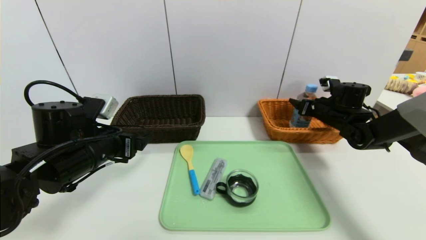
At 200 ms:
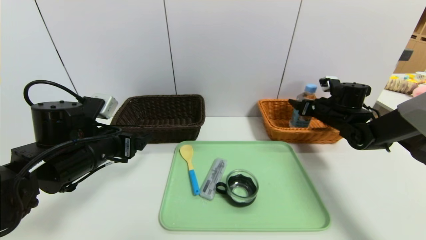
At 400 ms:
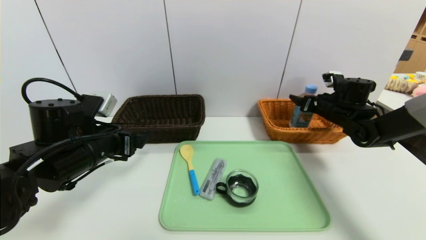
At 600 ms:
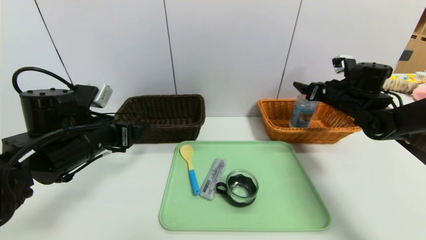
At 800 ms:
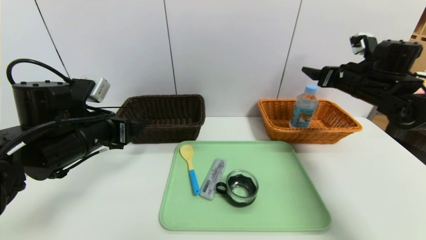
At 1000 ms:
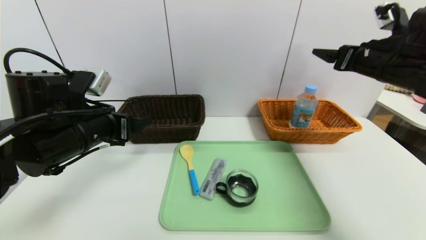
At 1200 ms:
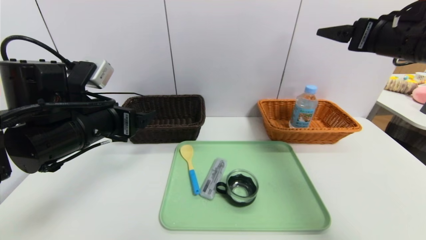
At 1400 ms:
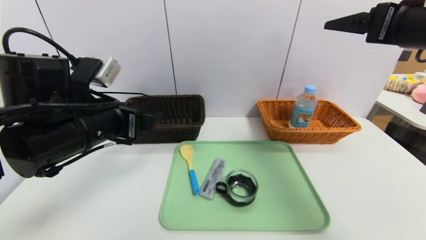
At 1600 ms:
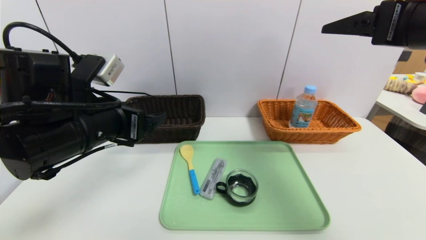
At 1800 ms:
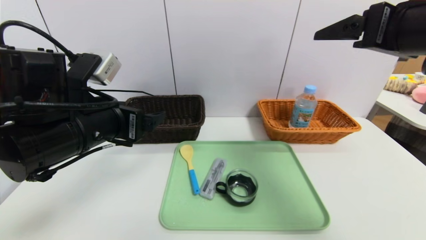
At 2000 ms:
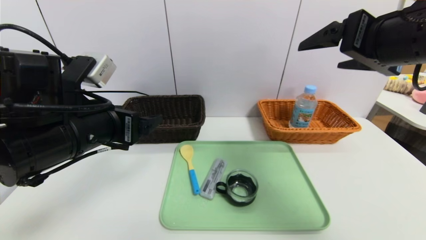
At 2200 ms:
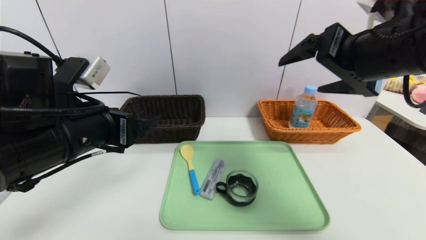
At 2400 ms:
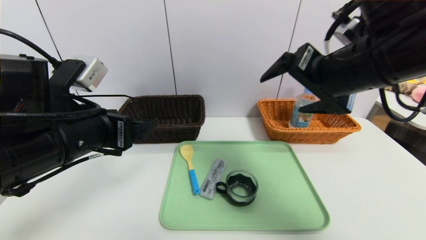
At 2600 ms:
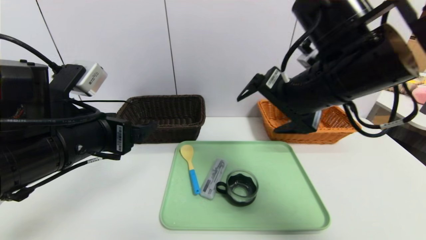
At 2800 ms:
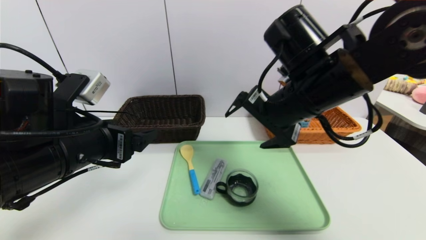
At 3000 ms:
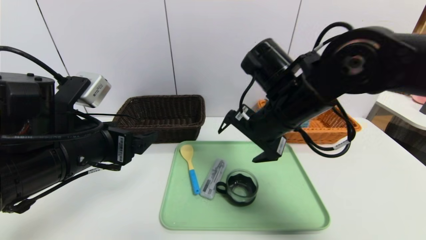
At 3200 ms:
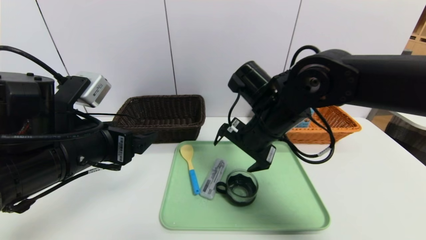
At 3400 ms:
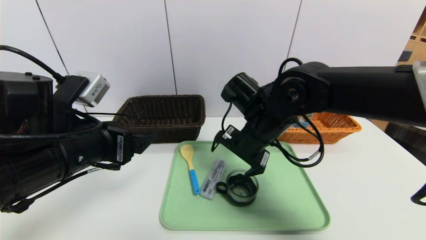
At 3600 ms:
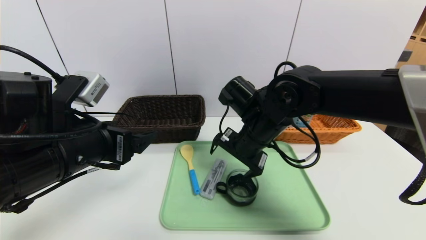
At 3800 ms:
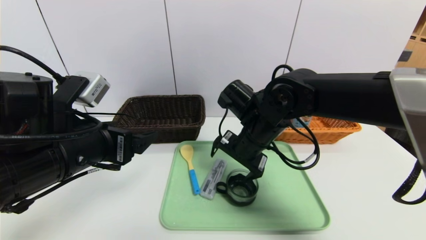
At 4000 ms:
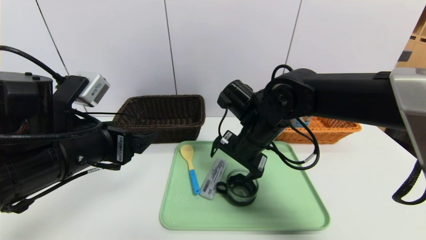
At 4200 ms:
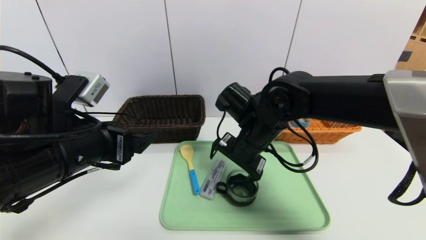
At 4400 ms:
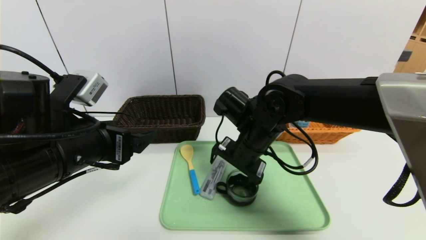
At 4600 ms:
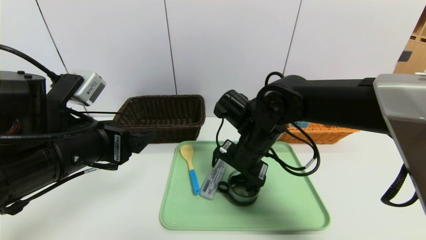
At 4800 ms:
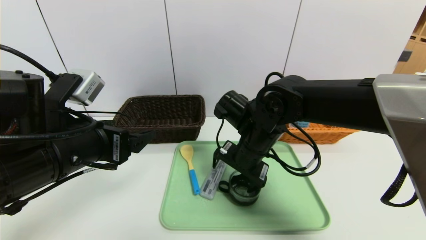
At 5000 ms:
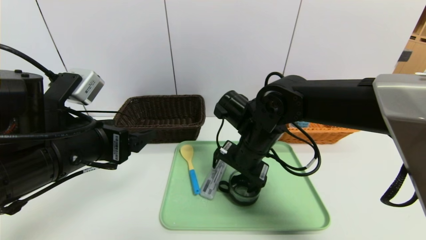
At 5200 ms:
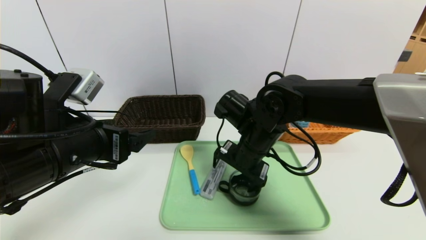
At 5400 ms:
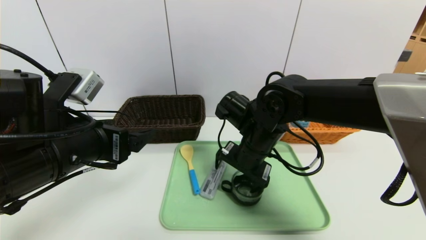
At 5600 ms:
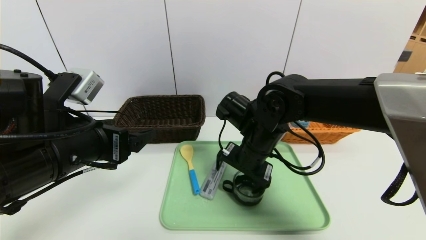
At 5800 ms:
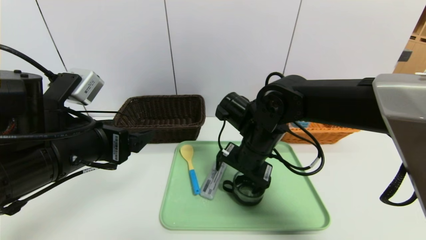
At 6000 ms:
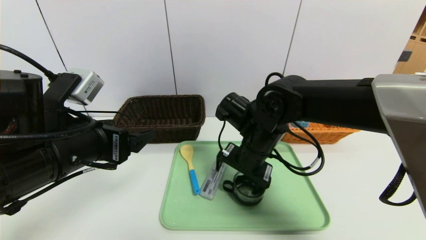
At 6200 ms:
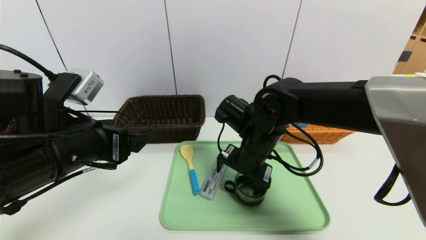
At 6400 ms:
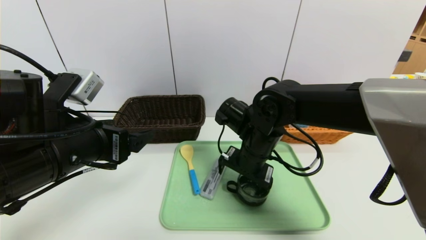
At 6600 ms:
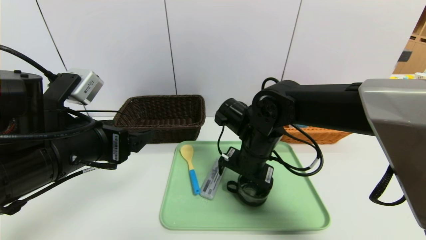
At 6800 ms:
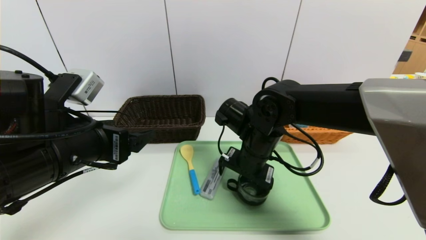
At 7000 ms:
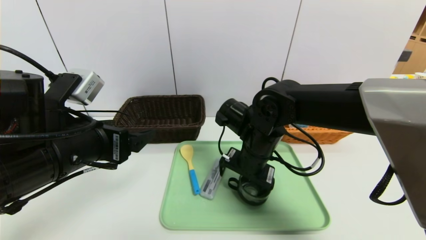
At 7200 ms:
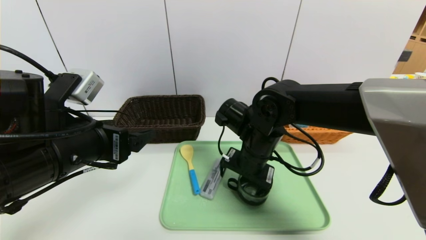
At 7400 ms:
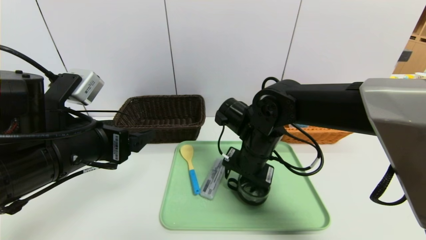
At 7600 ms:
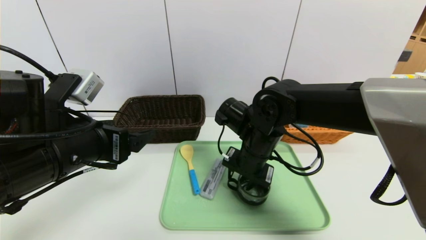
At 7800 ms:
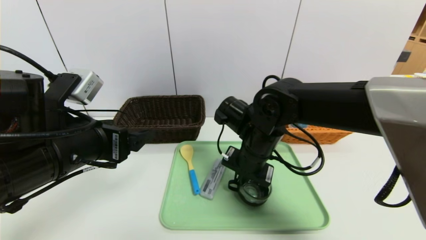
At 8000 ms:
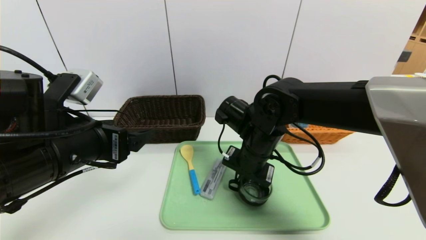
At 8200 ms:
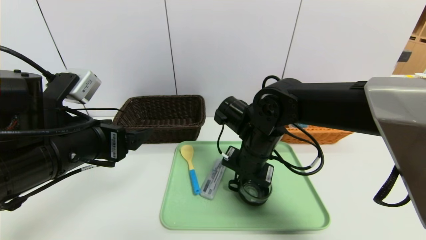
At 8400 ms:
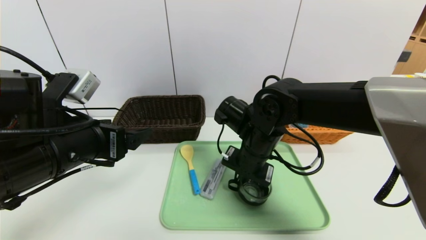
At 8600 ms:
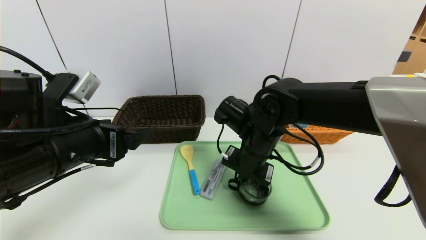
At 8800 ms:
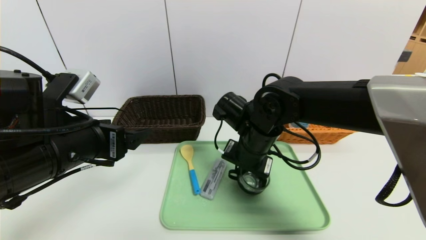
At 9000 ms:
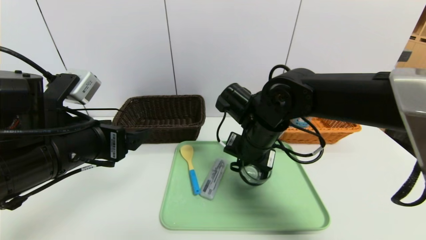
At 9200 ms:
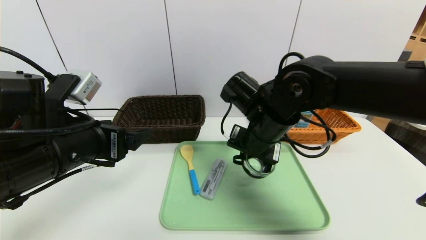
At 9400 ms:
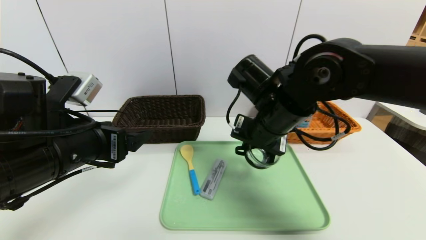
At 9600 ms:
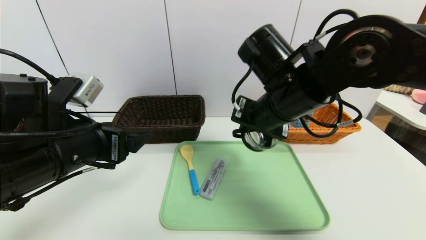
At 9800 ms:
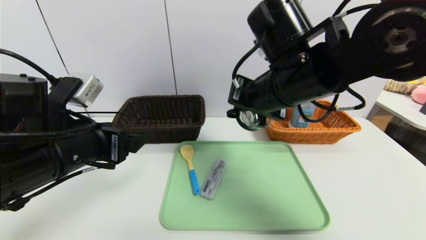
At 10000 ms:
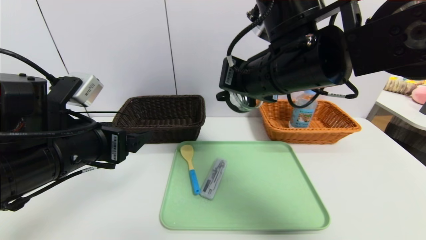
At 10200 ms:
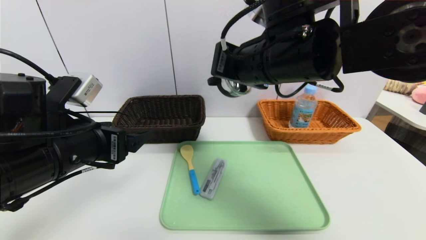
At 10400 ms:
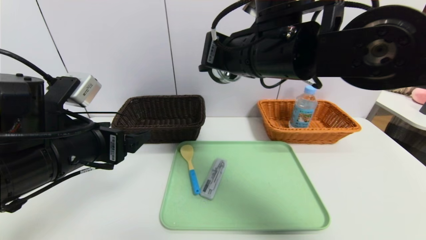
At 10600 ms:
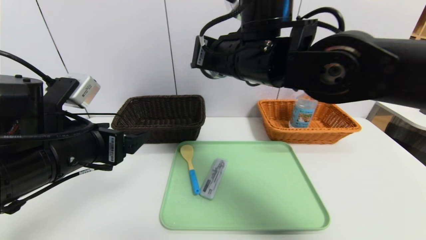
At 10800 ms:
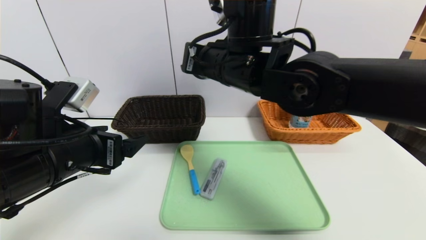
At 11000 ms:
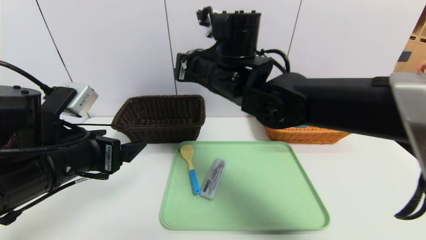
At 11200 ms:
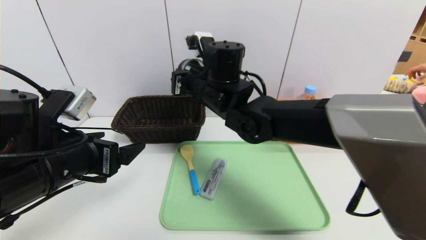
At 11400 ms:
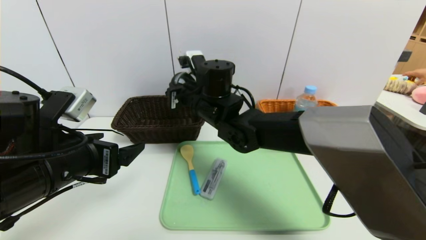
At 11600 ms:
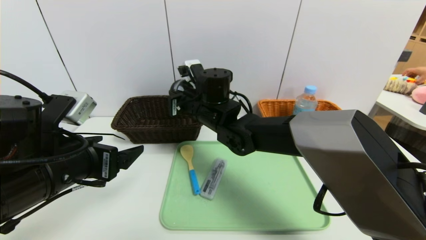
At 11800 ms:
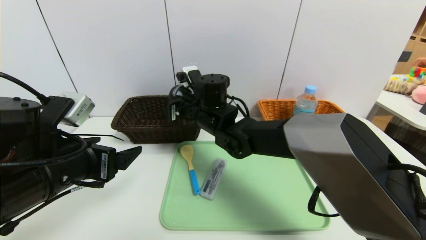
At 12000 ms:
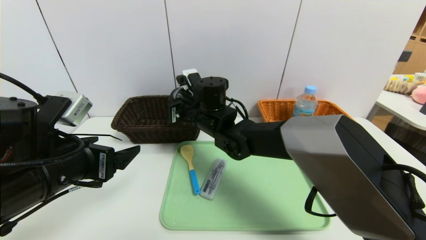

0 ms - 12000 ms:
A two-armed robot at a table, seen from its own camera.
Task of the whole recording: place the food in the right basket with the right gripper, and place the non food items in the left basket with the left gripper.
0 ms - 1600 ms: The left gripper moves upward, about 10 cm, while the right gripper travels upward and backward by some 35 cm.
1600 ms - 3000 ms: The right gripper moves to the left and downward, some 20 cm.
3000 ms - 4400 ms: The right gripper heads downward, covering some 10 cm.
4400 ms - 6000 ms: The grippers move only a little.
6000 ms - 7600 ms: The right gripper closes its fingers.
7600 ms - 9000 ms: The right gripper closes its fingers.
9000 ms - 10400 ms: The right gripper heads upward, covering roughly 15 cm.
10400 ms - 12000 ms: The right gripper is displaced downward, forward and to the left by some 20 cm.

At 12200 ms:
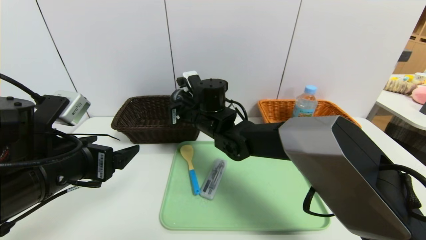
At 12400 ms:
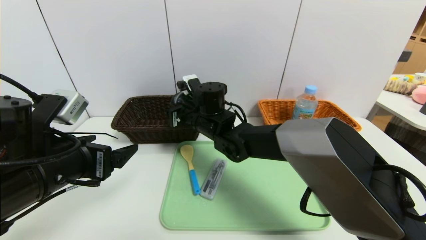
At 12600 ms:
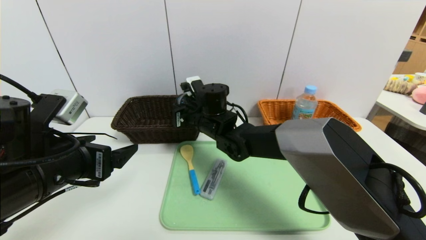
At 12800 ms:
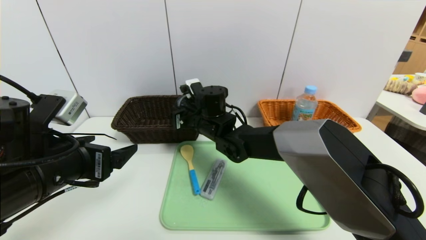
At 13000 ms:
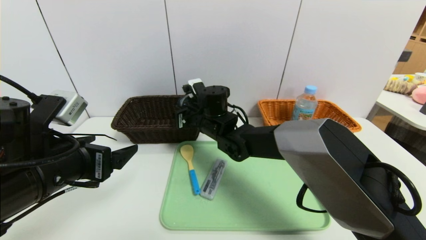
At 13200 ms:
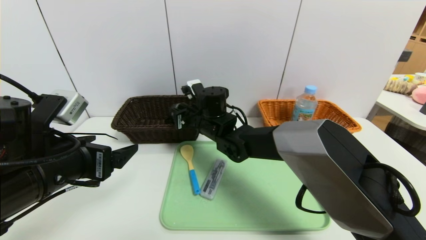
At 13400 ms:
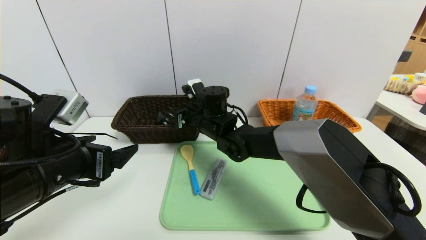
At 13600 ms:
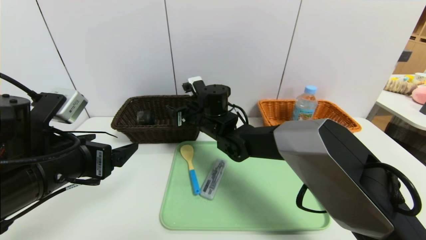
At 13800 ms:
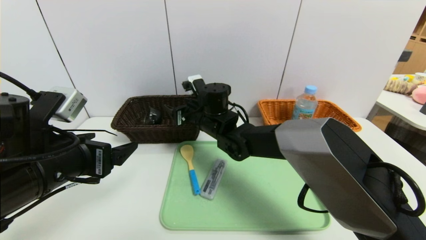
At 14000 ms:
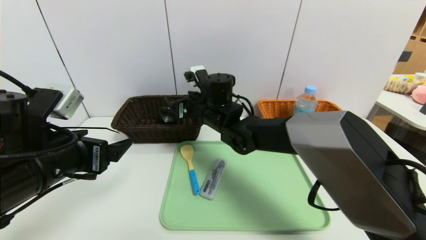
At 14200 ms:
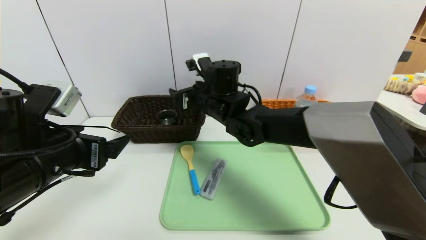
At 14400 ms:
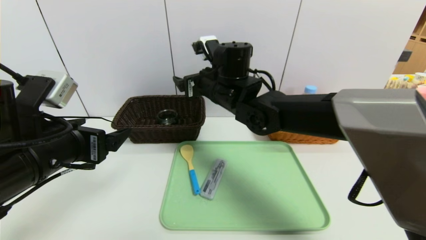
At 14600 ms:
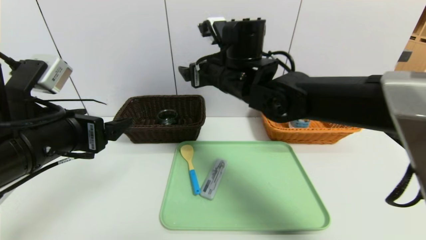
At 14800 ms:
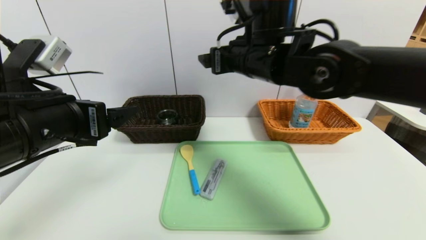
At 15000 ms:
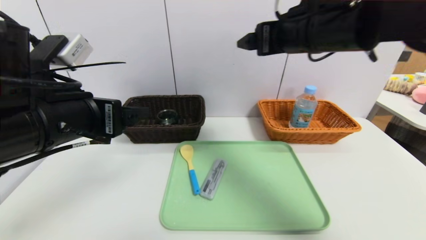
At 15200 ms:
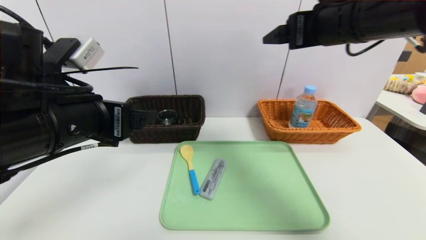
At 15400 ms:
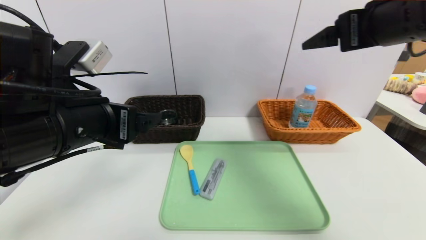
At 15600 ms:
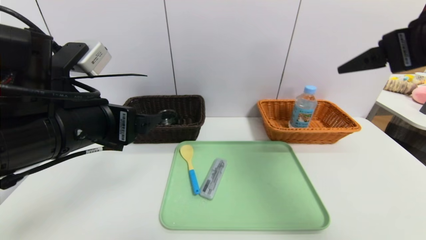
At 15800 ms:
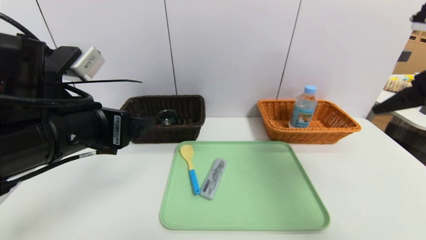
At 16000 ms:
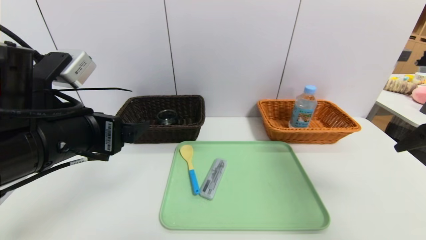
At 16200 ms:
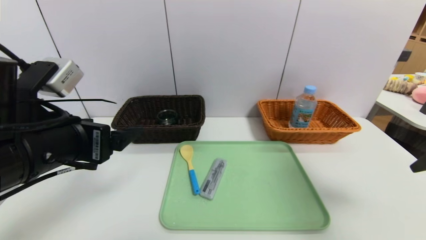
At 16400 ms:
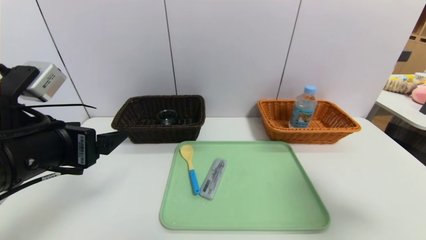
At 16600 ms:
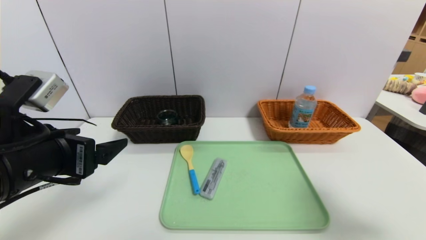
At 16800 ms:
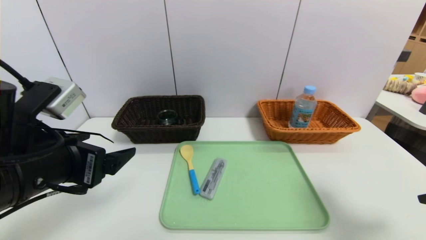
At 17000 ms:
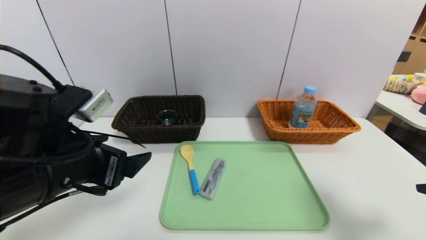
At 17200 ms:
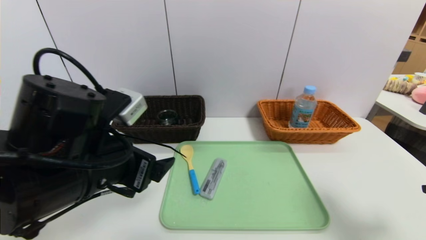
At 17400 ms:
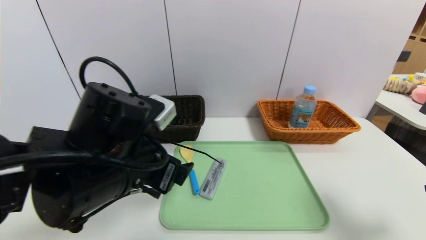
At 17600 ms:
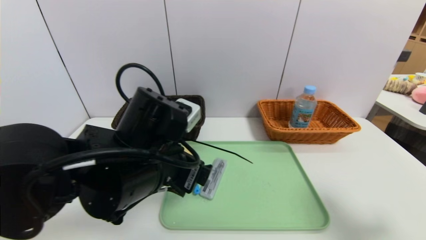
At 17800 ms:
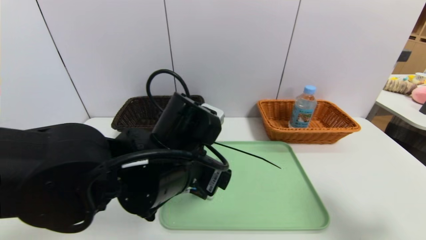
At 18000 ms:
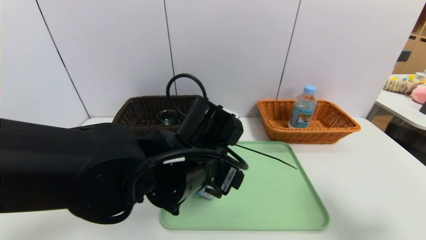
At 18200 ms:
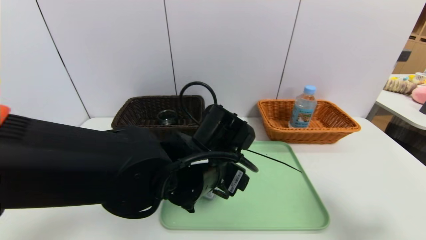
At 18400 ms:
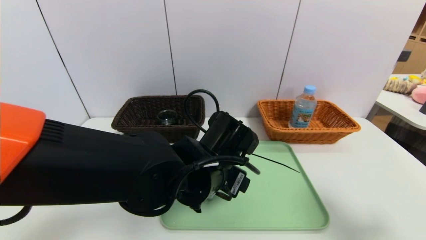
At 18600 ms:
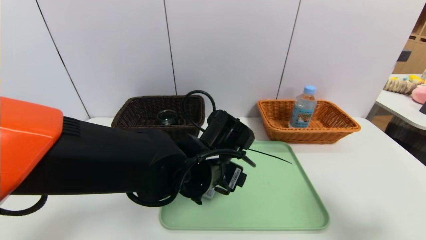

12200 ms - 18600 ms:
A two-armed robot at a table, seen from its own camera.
Task of the whole recording: place the food in the right basket with the right gripper, and place the non food items in the left basket with the left gripper.
Step, 12200 ms - 14800 ms: Grasp the black glass cup and put it in the left basket.
12200 ms - 13800 ms: The right gripper opens up.
13800 ms - 15400 ms: The right gripper travels to the right, upward and backward by about 40 cm. Meanwhile the left gripper heads upward, covering about 5 cm.
15400 ms - 17000 ms: The right gripper shifts roughly 20 cm downward, backward and to the right.
17000 ms - 18600 ms: The left gripper is displaced to the right, forward and downward by approximately 20 cm.
